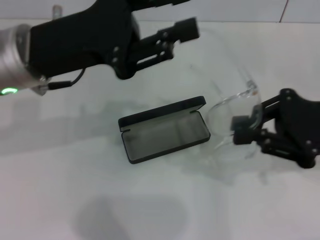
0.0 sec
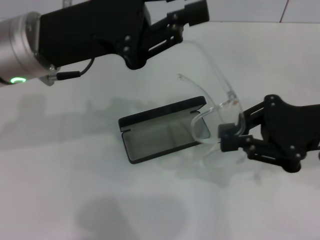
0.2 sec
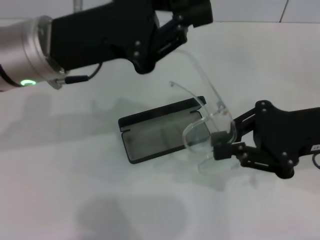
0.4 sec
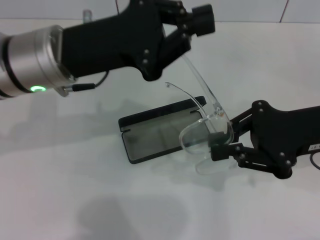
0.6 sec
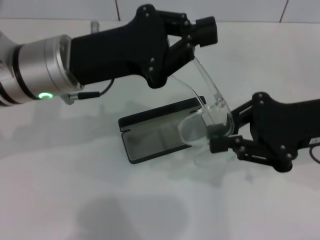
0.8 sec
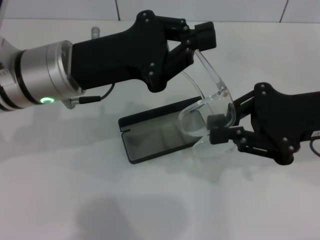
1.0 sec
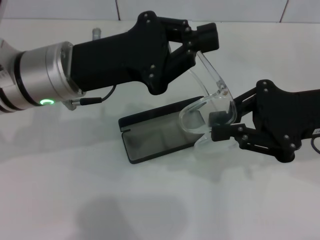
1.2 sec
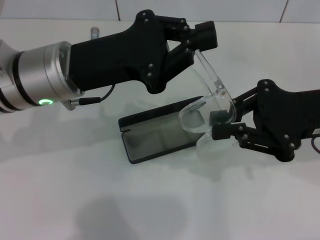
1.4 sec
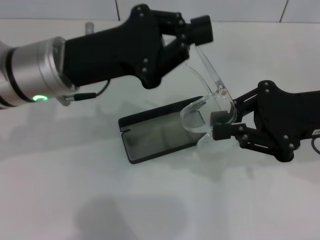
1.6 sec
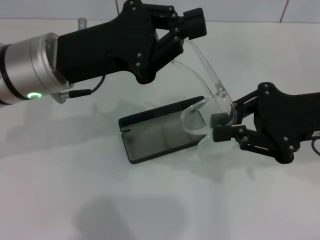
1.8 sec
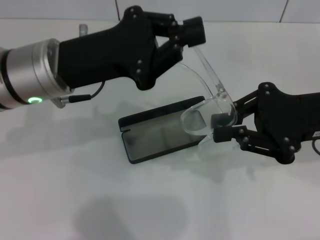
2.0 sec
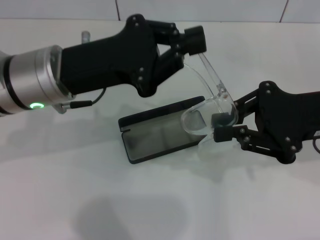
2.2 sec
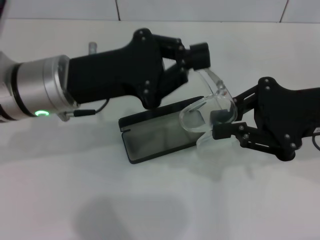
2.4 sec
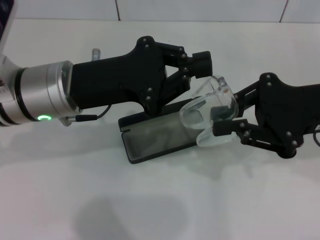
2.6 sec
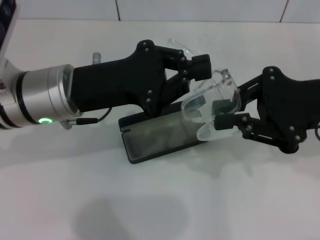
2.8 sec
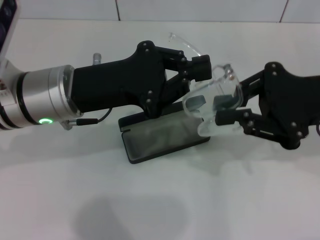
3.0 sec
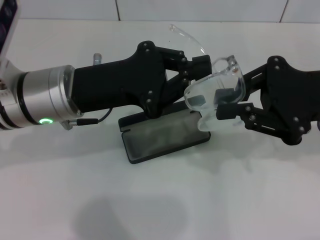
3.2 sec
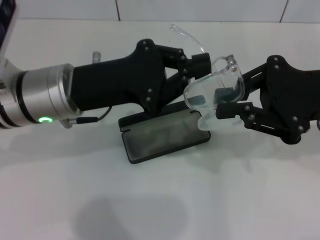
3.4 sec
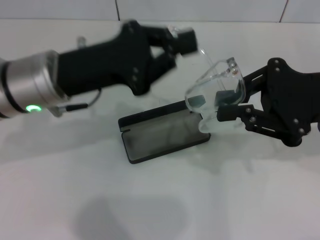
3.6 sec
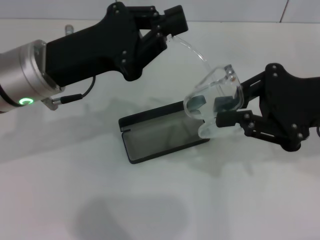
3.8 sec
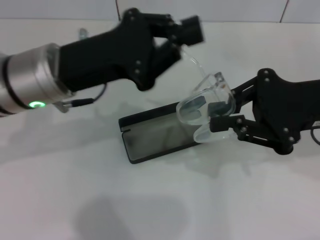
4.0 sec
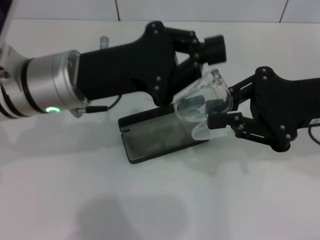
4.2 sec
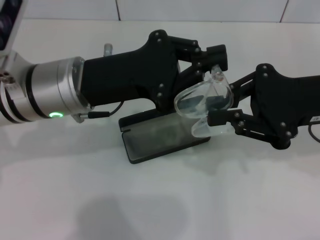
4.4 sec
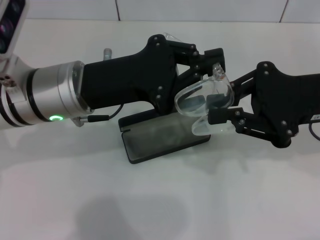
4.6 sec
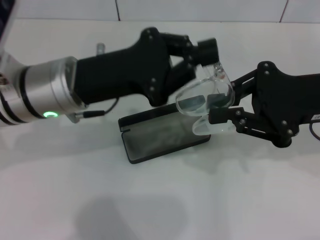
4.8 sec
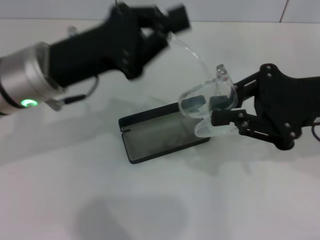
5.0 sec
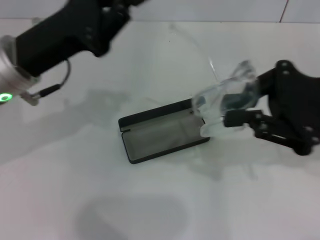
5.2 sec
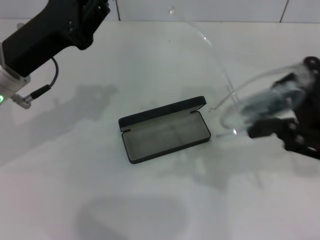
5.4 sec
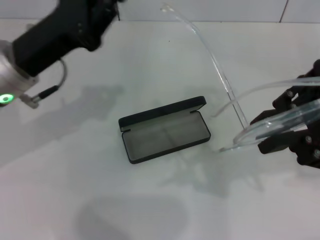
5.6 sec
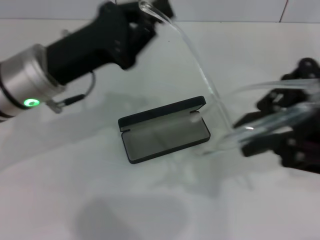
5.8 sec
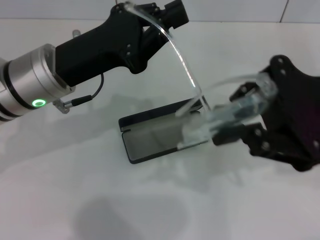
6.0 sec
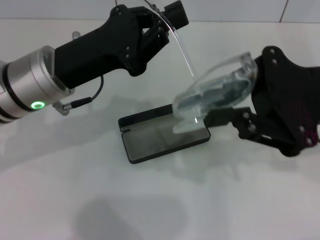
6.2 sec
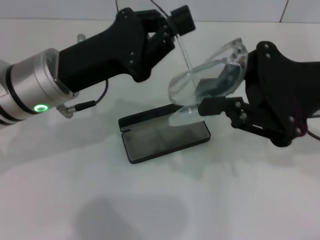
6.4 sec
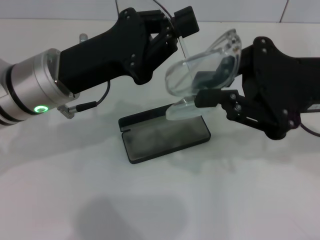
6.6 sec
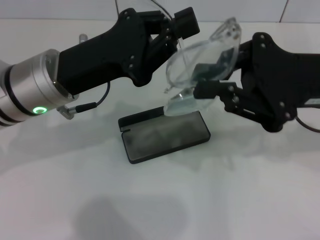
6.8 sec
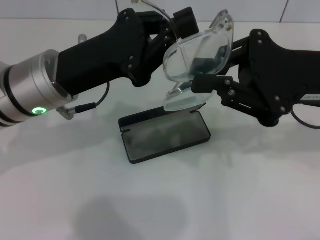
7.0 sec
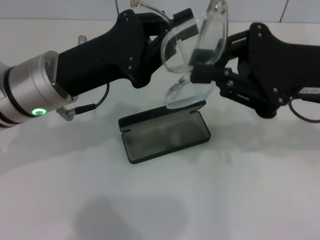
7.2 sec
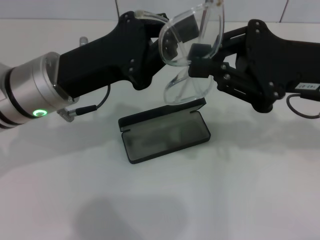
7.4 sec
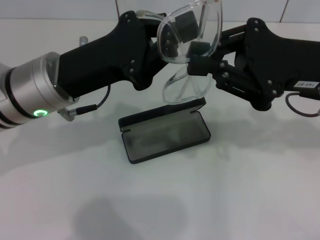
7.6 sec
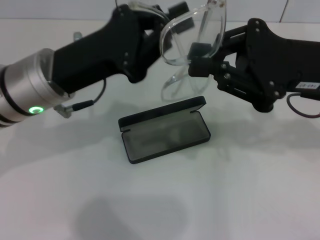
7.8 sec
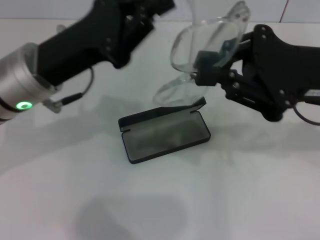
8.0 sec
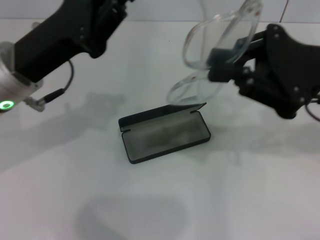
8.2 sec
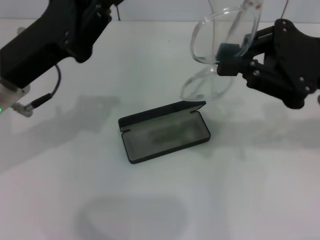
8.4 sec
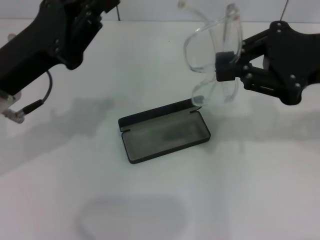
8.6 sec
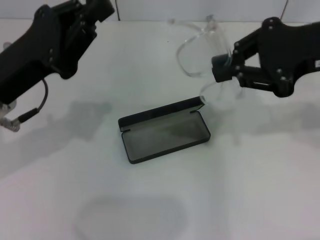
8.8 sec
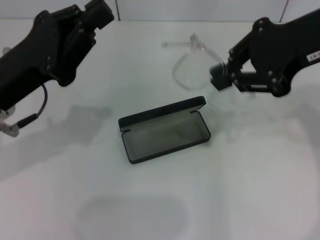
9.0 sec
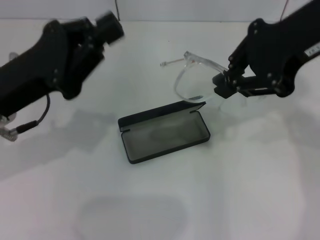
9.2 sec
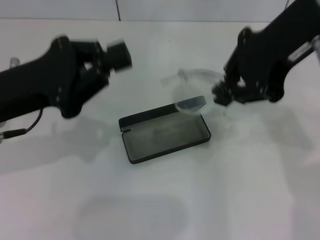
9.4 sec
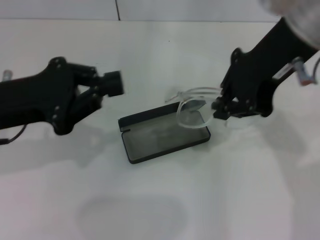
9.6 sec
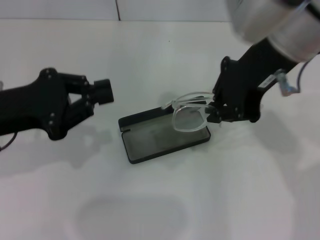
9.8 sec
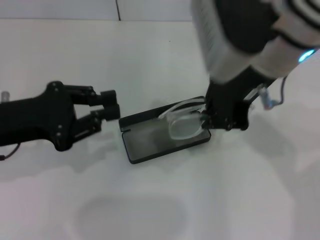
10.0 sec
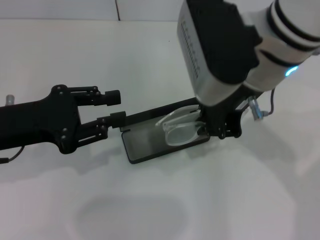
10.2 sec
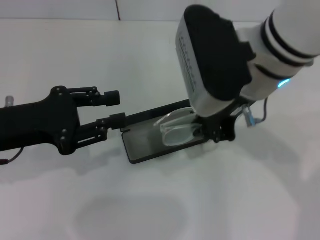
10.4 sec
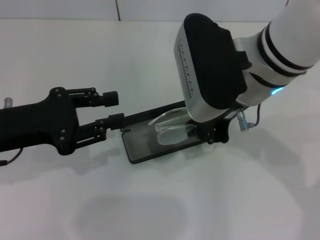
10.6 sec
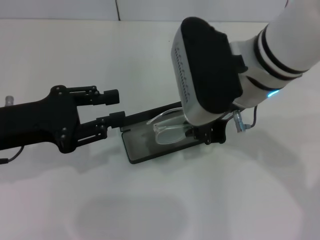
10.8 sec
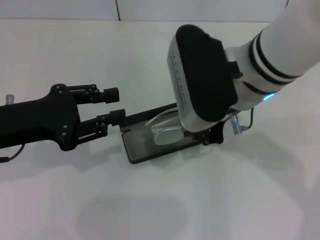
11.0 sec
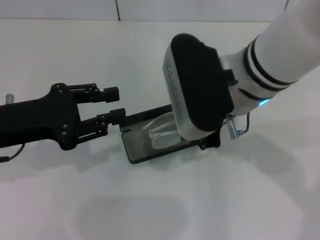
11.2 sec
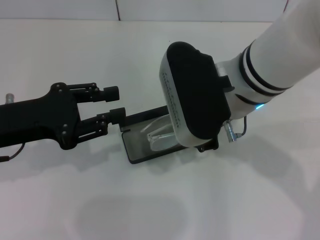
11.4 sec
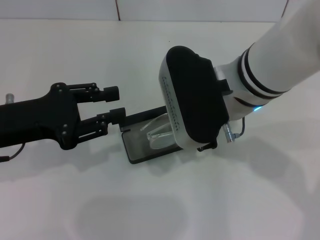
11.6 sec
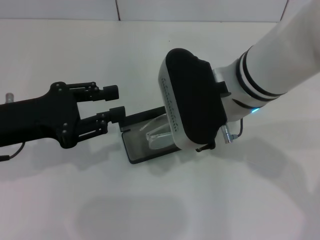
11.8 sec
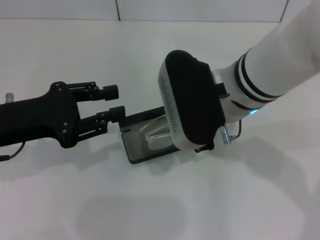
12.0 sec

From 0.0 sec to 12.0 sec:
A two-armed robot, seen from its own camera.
Step, from 0.0 sec to 7.6 sec: Fold the frame with your left hand.
From 0.0 sec to 1.6 sec: The left gripper closes.
From 3.0 sec to 4.4 sec: The grippers stay close to where they were, moving slightly.
From 7.6 sec to 9.0 sec: The right gripper moves upward, some 10 cm; the left gripper heads to the left, covering about 5 cm.
From 9.0 sec to 10.4 sec: The right gripper moves to the left and downward, roughly 15 cm; the left gripper opens its fingers.

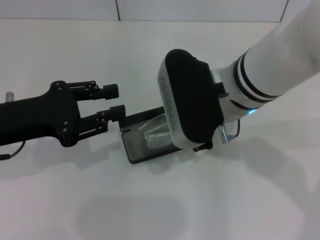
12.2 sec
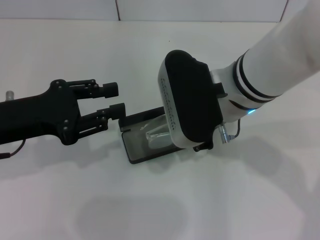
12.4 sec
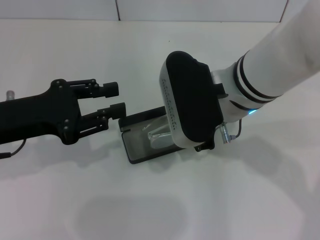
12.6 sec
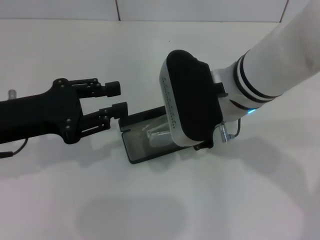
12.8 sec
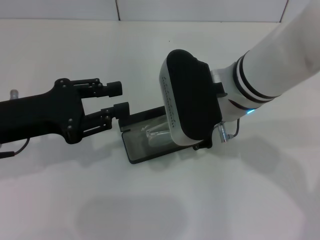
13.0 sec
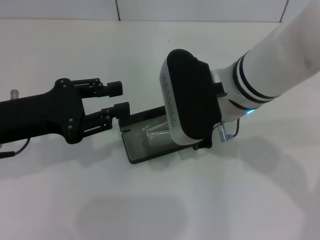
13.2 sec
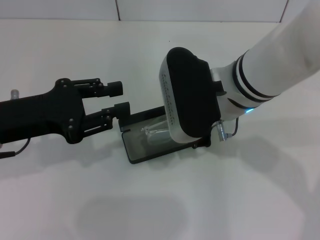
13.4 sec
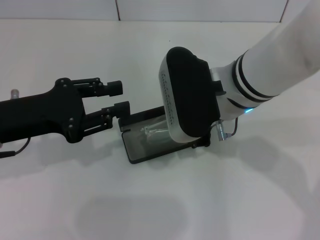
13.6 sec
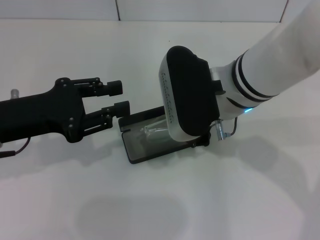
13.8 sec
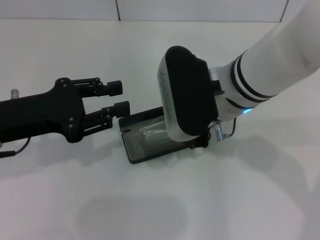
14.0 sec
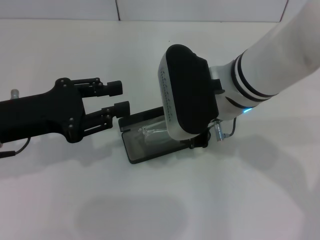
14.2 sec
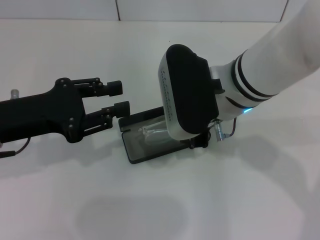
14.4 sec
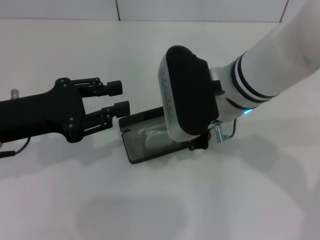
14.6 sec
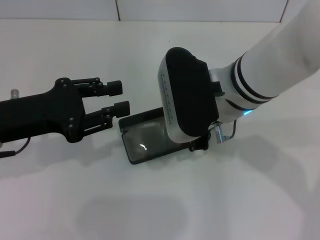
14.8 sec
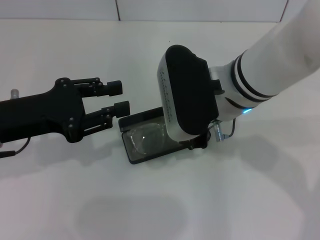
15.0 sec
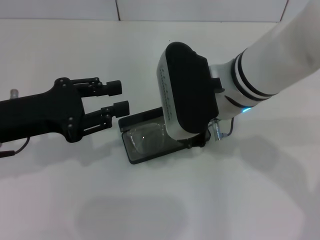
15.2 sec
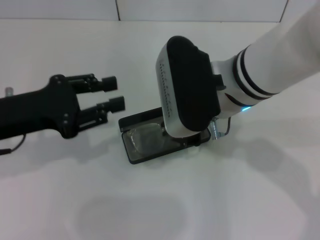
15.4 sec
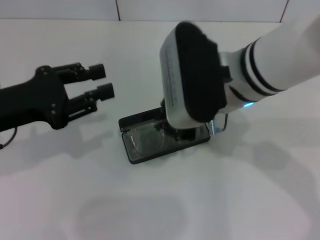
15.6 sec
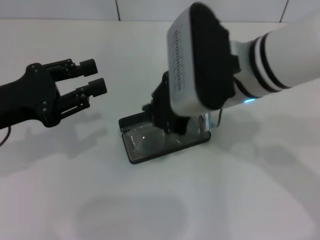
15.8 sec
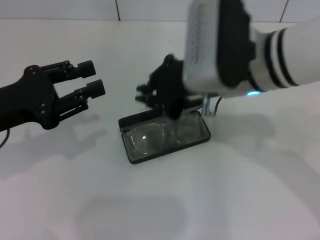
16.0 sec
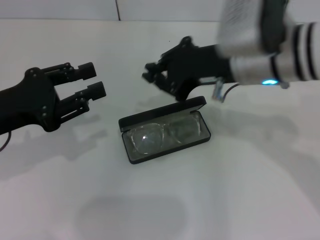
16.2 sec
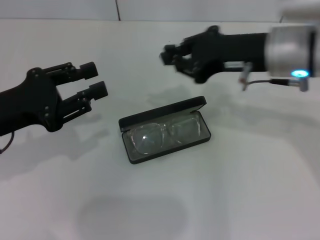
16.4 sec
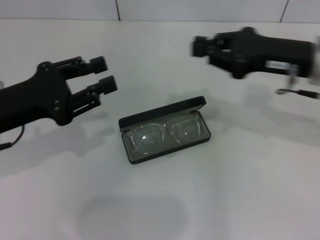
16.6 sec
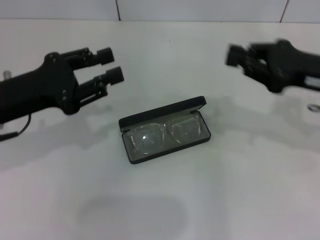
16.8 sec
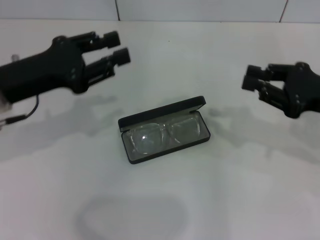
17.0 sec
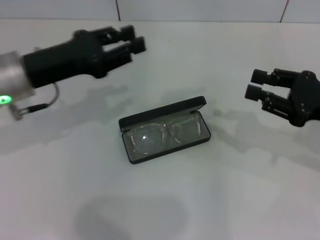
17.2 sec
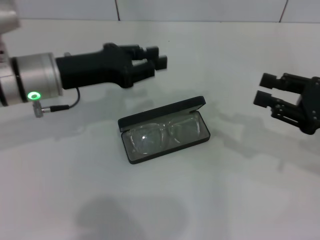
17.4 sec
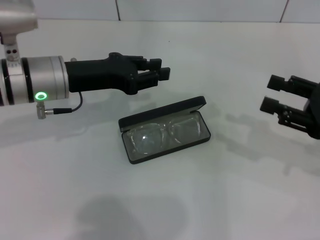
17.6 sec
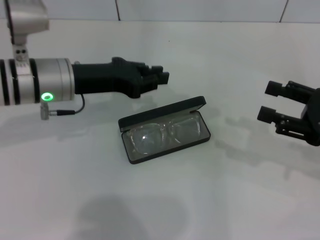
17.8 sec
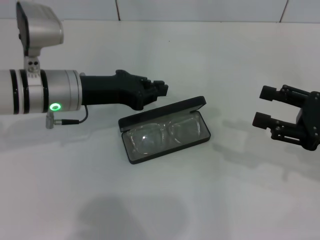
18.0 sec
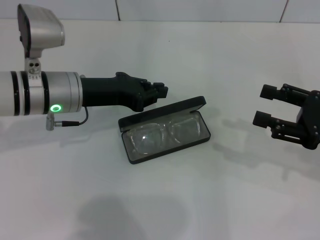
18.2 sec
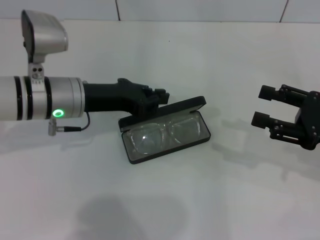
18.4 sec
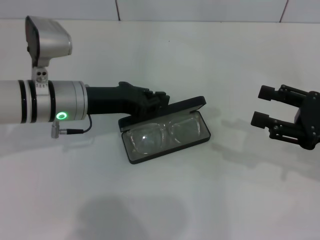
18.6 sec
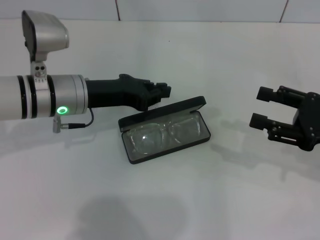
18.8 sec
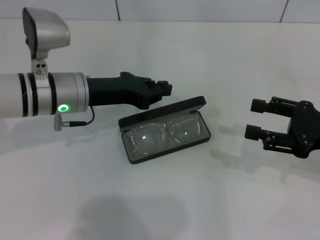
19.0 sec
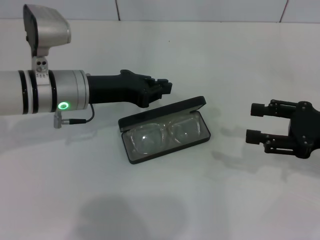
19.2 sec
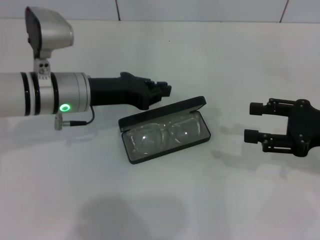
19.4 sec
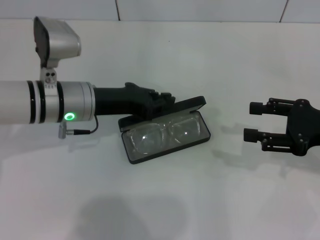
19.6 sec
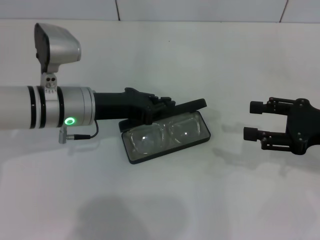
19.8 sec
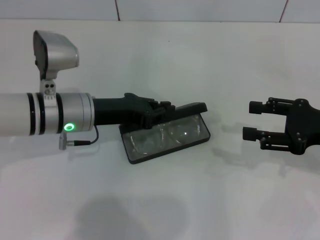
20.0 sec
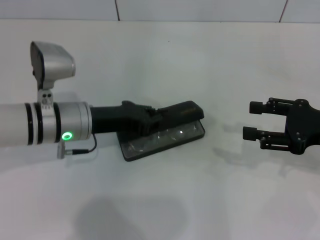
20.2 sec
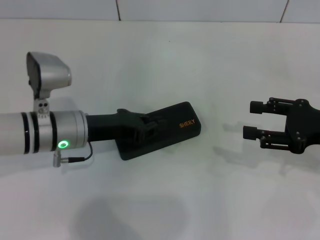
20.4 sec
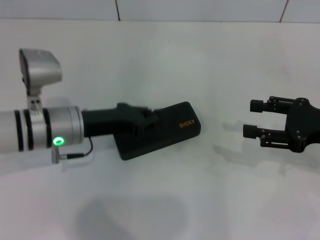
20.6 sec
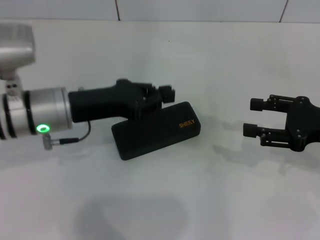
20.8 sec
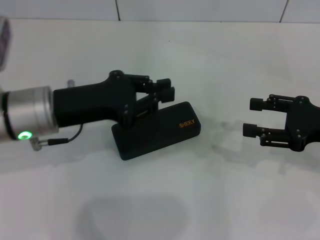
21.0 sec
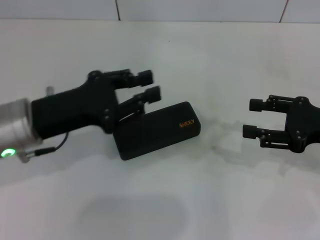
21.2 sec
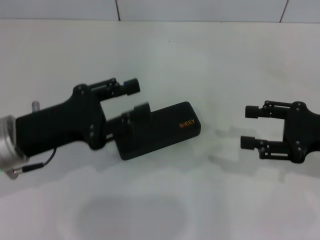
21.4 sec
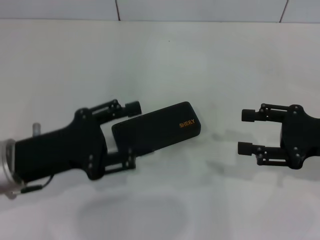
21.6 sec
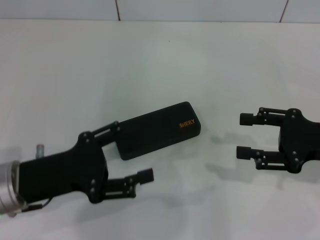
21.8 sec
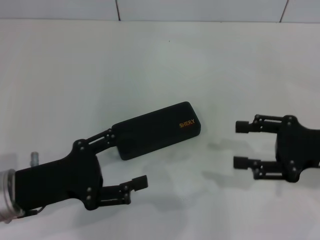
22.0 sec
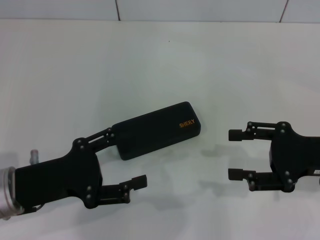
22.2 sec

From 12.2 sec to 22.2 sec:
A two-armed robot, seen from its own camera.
Step, from 12.2 sec to 14.8 sec: Put the glasses into the case with your right hand.
Step, from 15.0 sec to 20.4 sec: Close the glasses case with your left hand.
From 12.2 sec to 15.0 sec: Neither gripper changes place.
From 15.0 sec to 16.4 sec: The right gripper goes about 10 cm to the right.
From 16.4 sec to 18.0 sec: The left gripper is displaced to the right and forward by about 15 cm. Meanwhile the right gripper goes approximately 20 cm to the right, downward and backward, and opens its fingers.
From 18.0 sec to 20.8 sec: There are only small adjustments of the grippers.
From 20.8 sec to 22.2 sec: The left gripper is displaced backward and to the left by some 10 cm, and opens up.
